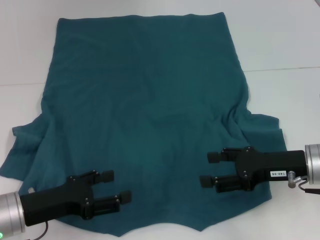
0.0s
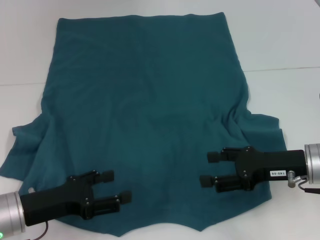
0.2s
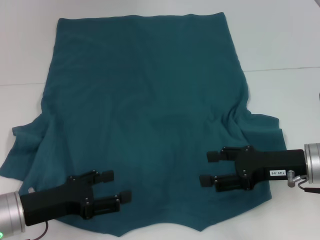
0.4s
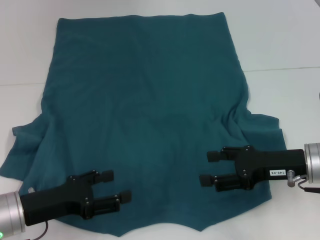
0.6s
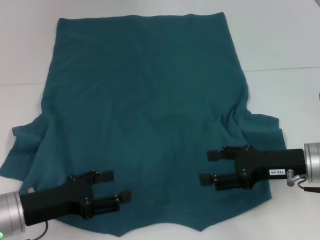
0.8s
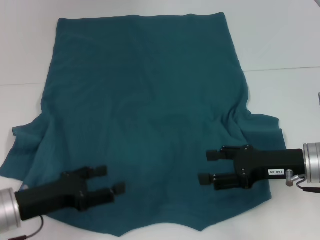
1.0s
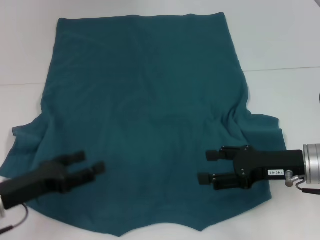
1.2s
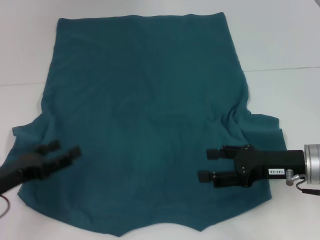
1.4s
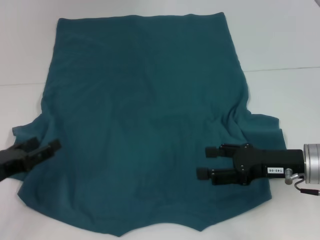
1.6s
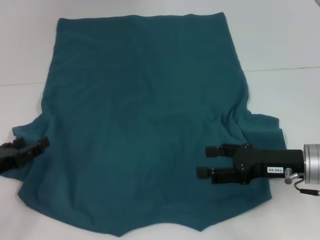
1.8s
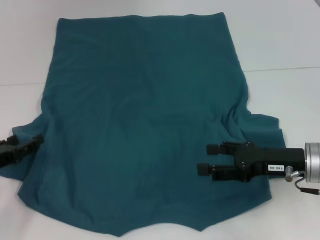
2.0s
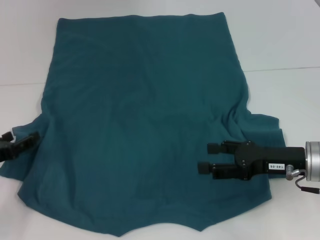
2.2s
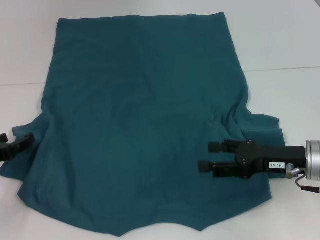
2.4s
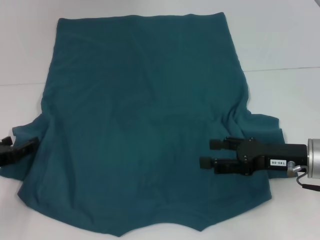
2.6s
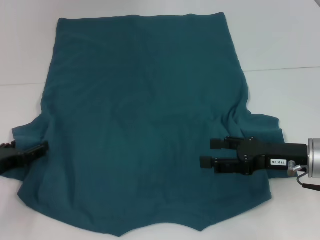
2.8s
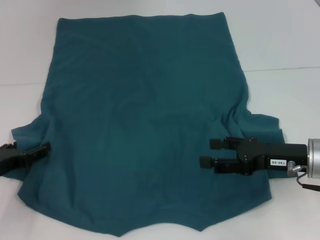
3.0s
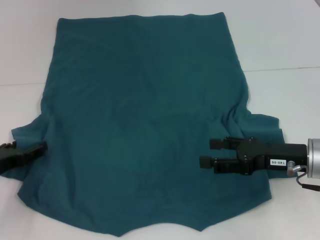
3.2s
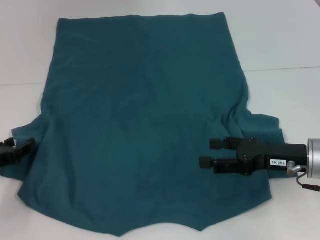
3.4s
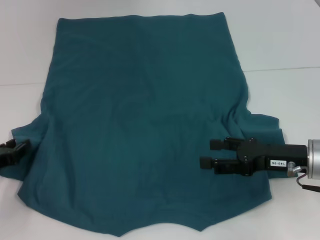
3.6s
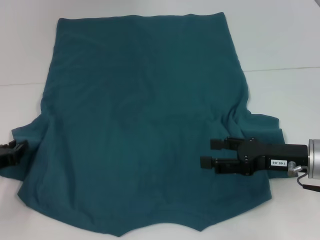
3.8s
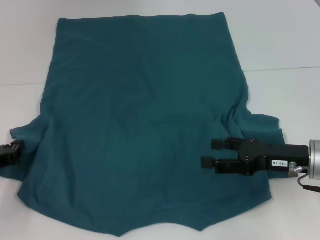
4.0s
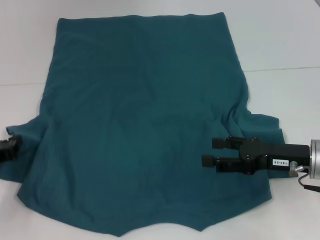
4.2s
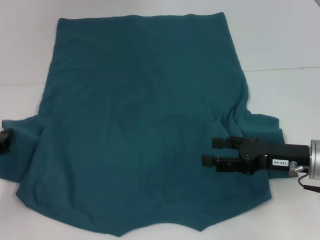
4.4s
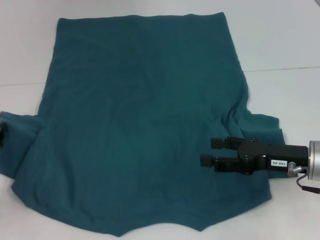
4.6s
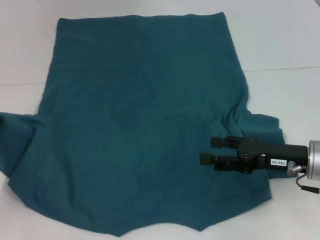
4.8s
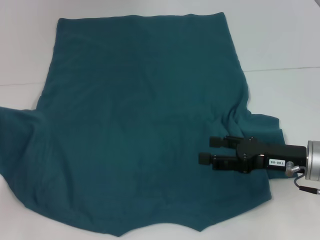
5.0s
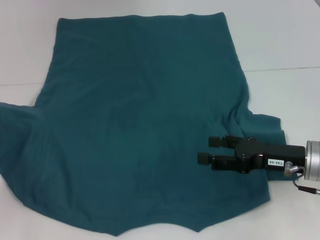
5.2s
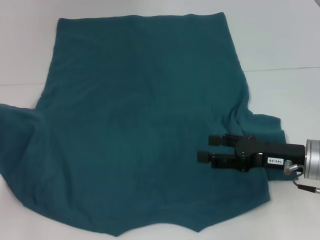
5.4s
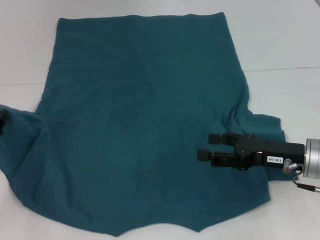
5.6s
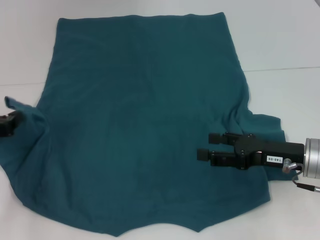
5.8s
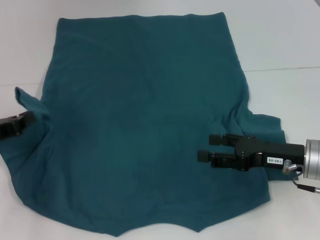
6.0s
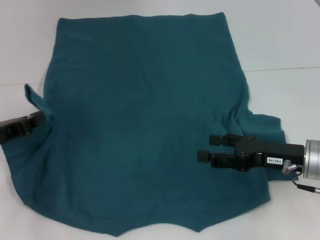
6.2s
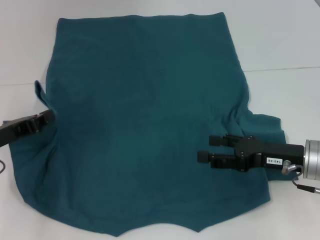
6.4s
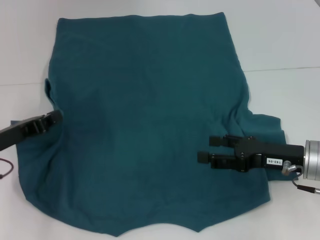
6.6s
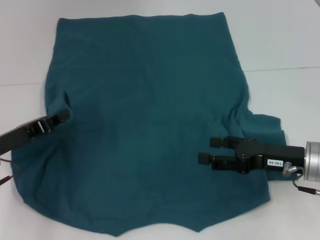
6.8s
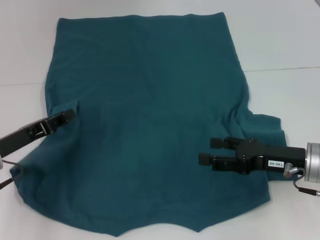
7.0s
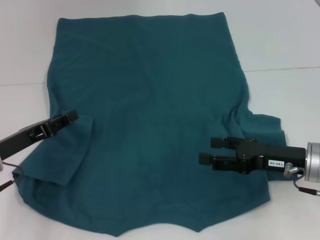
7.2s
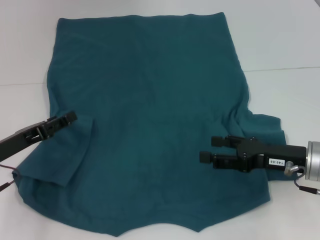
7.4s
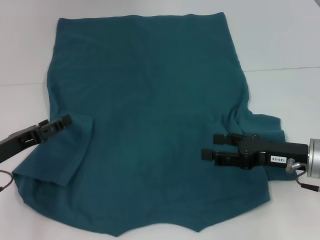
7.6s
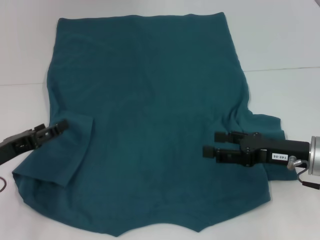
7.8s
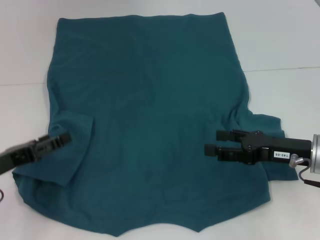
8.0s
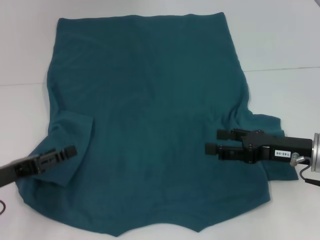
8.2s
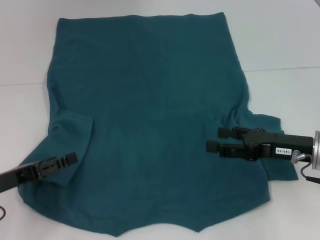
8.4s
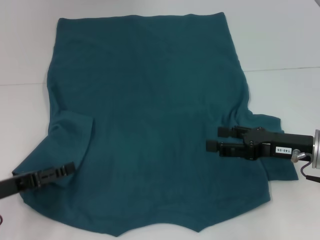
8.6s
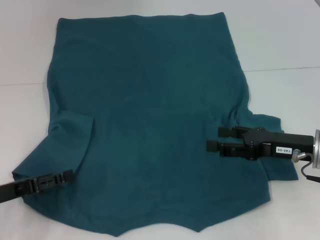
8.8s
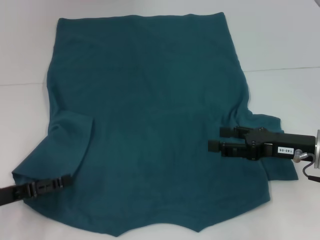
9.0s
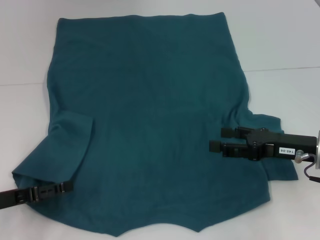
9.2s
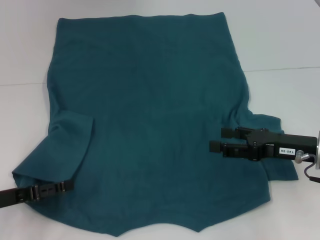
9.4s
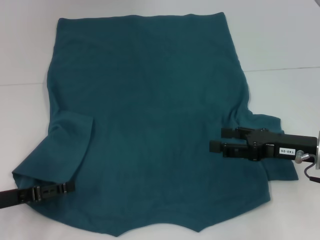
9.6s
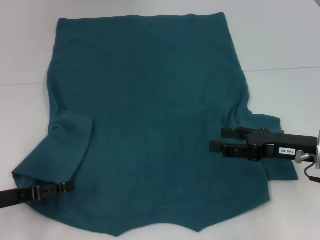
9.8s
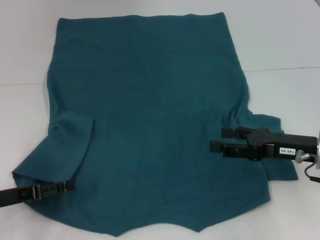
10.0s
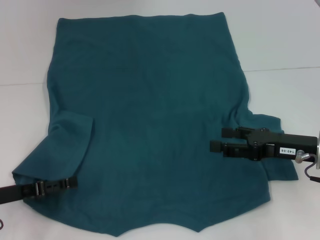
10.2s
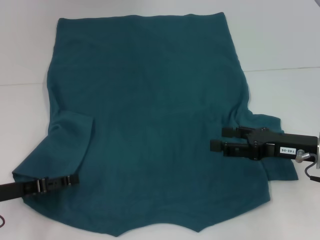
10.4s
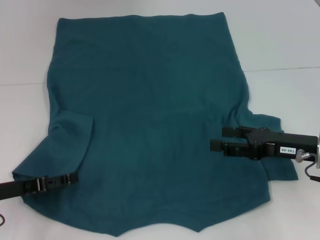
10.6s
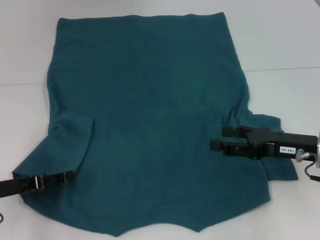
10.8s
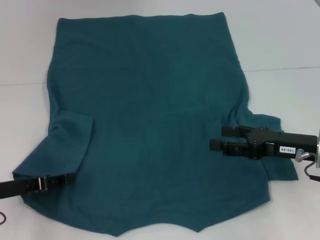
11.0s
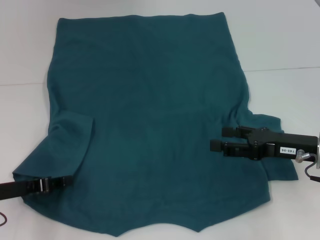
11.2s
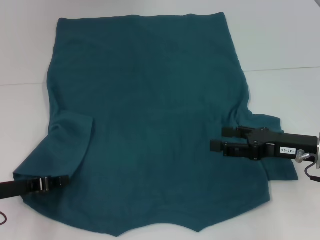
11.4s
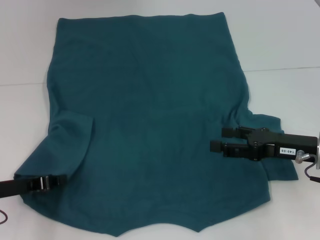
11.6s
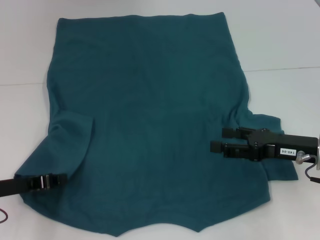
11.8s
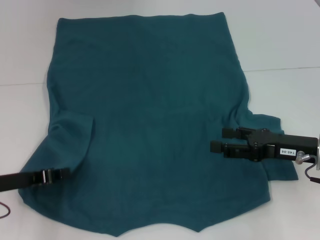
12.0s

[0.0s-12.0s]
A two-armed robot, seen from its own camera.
Step, 0.0s to 7.0s: Fold the bottom left sleeve with your left hand.
0.0s to 1.6s: The left gripper heads to the left, covering approximately 5 cm.
1.6s to 3.0s: The grippers stay close to where they were, moving slightly.
3.0s to 4.4s: The left gripper closes up.
4.4s to 6.0s: The grippers make only small movements.
6.0s to 7.6s: The left gripper opens.
9.0s to 10.4s: The grippers make only small movements.
10.4s to 12.0s: The left gripper closes its fingers.

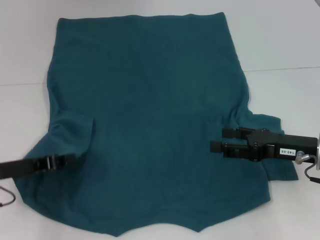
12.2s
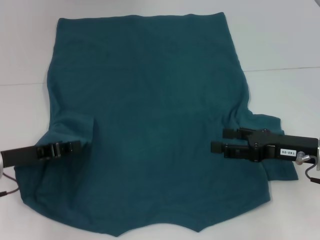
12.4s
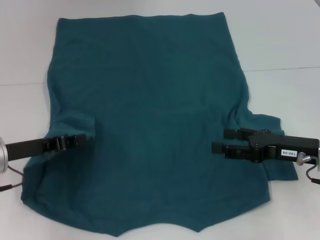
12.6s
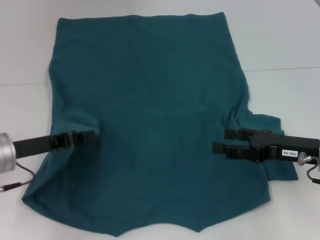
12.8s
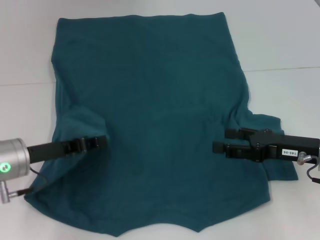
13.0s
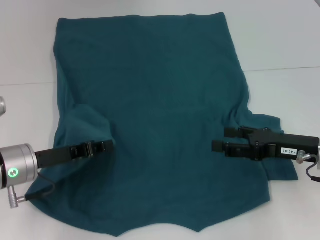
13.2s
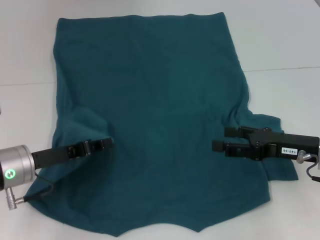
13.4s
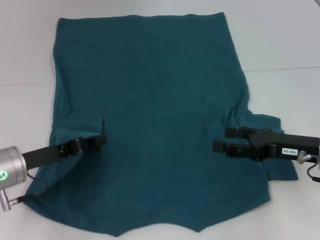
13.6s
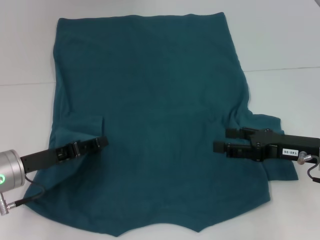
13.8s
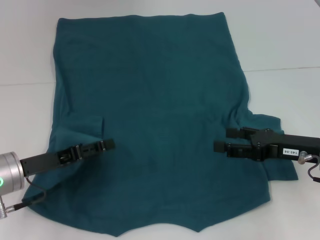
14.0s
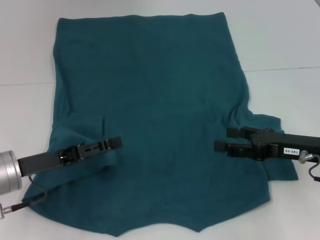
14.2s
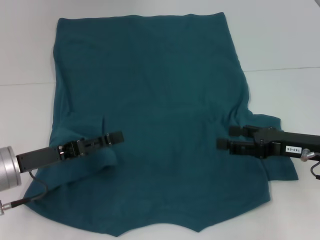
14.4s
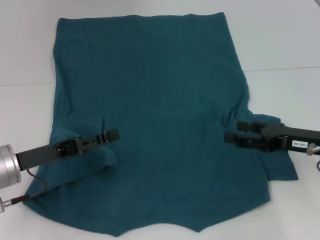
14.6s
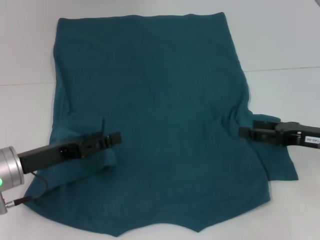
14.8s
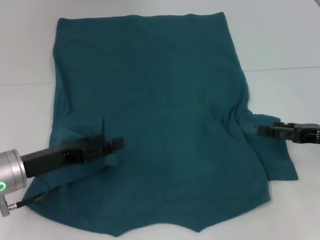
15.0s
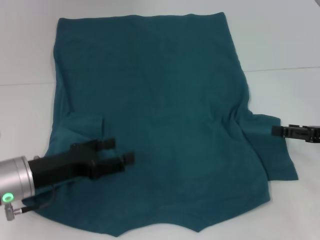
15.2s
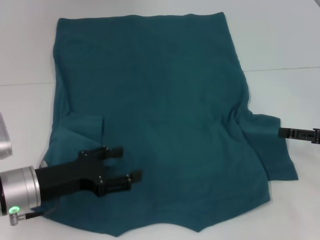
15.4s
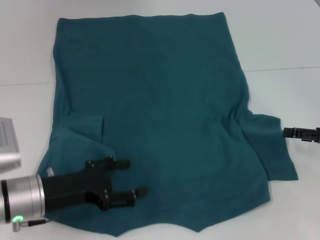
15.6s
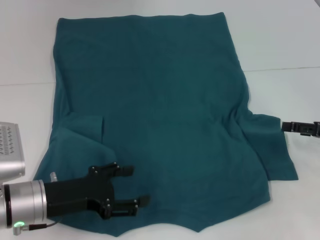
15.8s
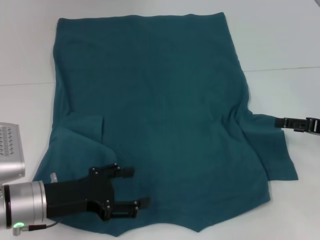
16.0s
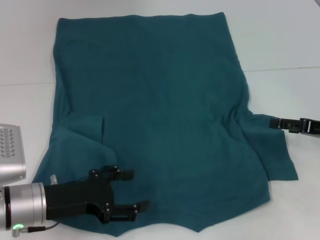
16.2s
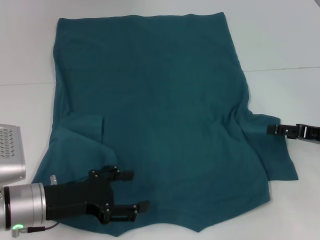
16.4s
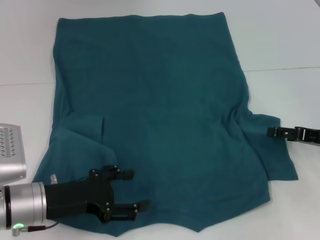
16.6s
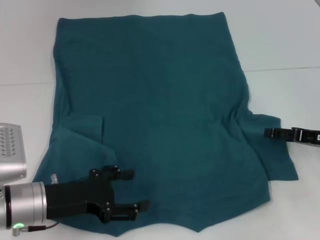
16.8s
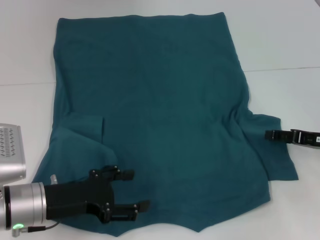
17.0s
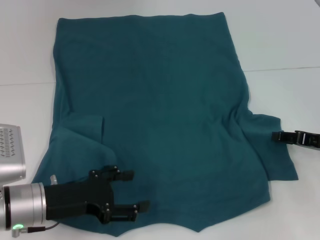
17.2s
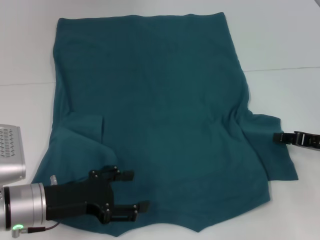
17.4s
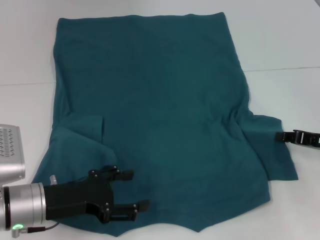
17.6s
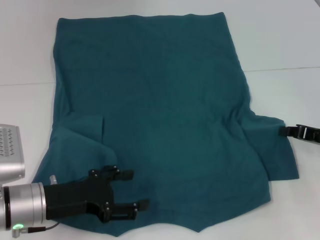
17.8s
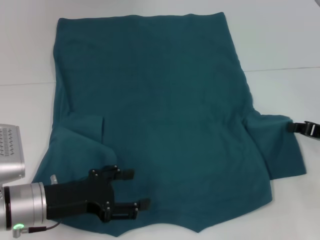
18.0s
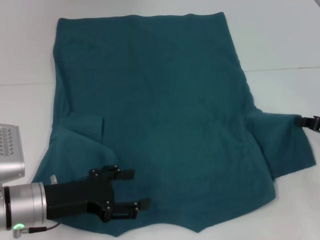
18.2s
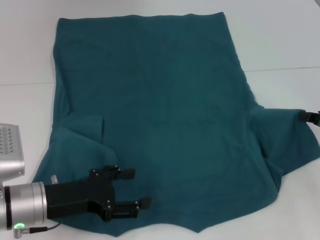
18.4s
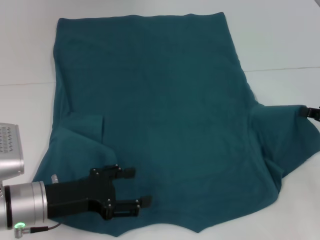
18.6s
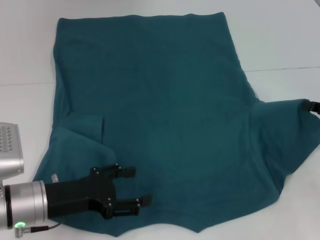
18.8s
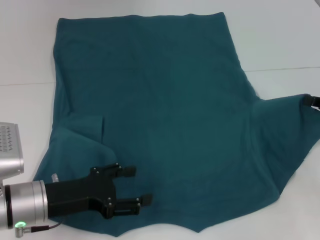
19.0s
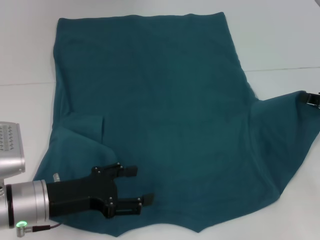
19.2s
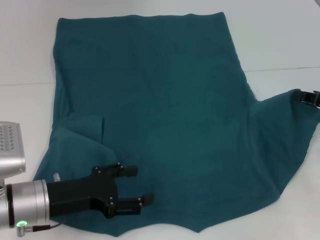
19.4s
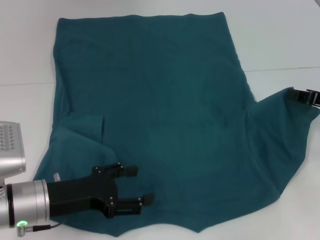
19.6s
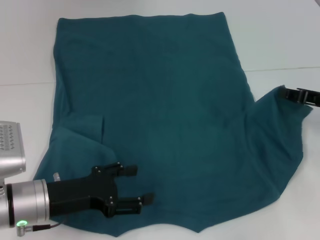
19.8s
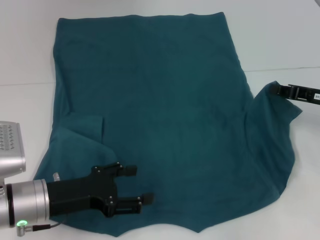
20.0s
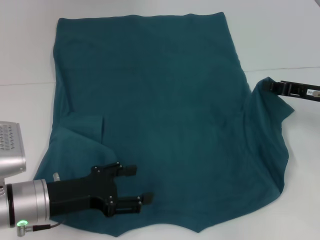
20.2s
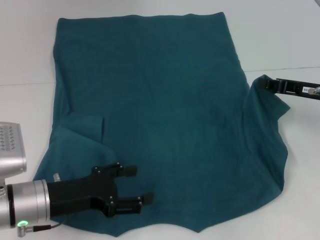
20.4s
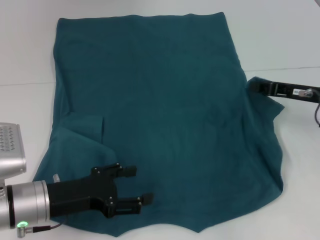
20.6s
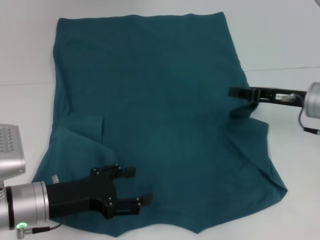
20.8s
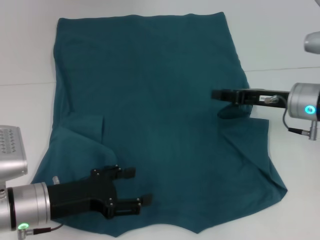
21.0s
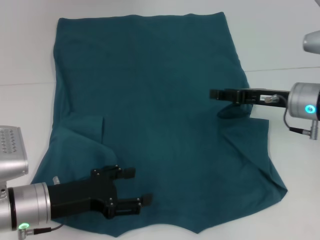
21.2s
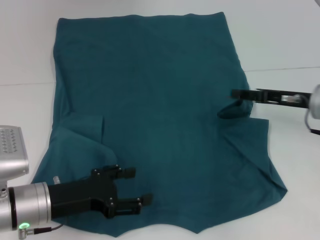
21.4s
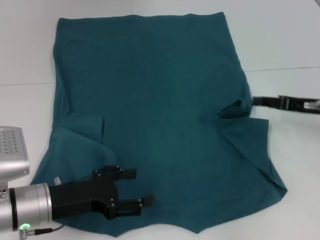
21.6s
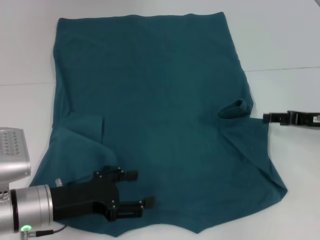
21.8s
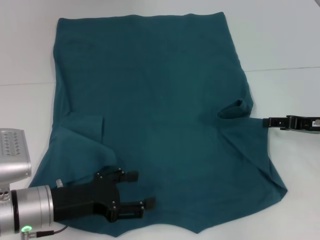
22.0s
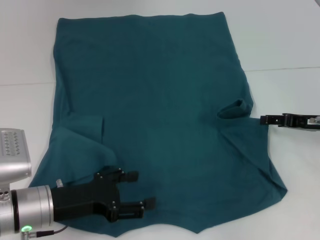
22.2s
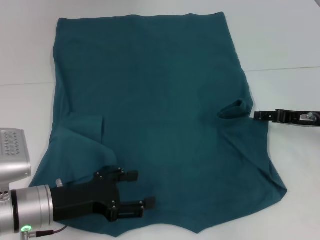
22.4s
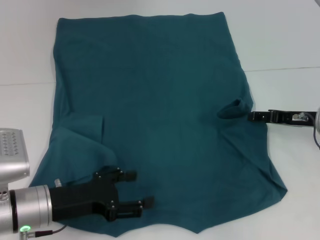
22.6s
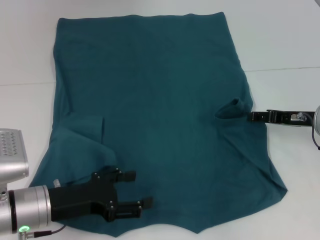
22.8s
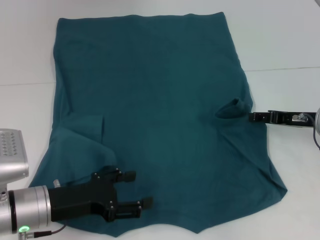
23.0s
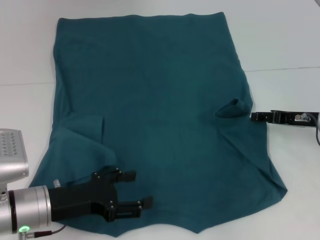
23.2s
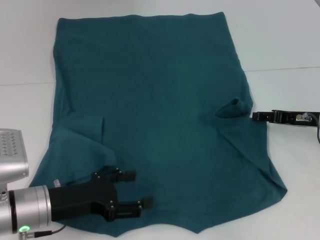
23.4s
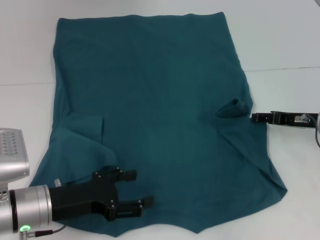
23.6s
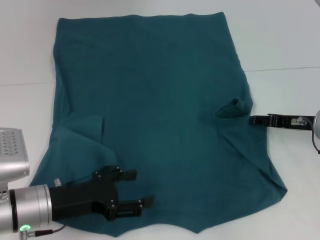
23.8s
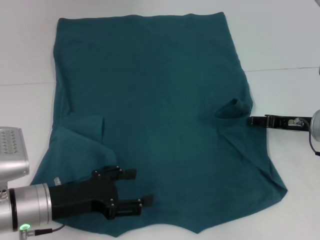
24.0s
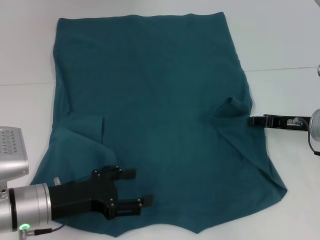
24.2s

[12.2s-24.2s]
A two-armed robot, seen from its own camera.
12.2s to 13.8s: The grippers move only a little.
13.8s to 15.2s: The right gripper goes some 10 cm to the right; the left gripper opens.
16.6s to 18.2s: The right gripper closes up.
18.2s to 19.8s: The right gripper ends up some 5 cm from where it was.
19.8s to 21.2s: The right gripper moves to the left, about 10 cm.
21.2s to 22.6s: The right gripper travels to the right by roughly 5 cm, and opens its fingers.
22.6s to 24.2s: Both grippers stay about where they are.
